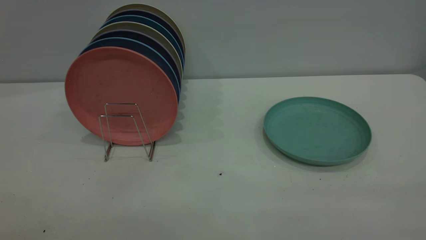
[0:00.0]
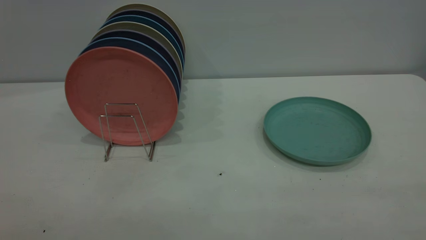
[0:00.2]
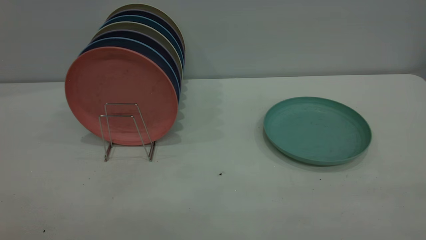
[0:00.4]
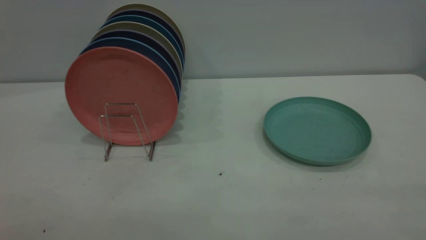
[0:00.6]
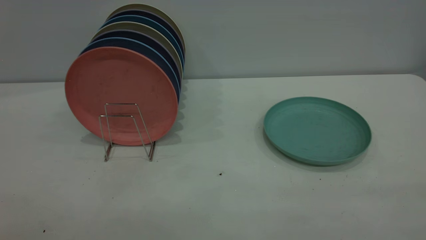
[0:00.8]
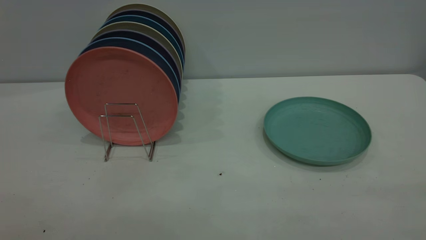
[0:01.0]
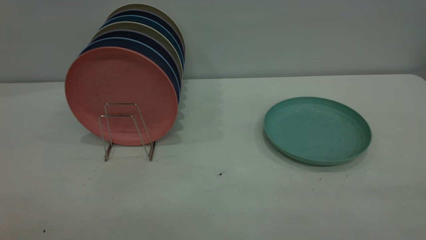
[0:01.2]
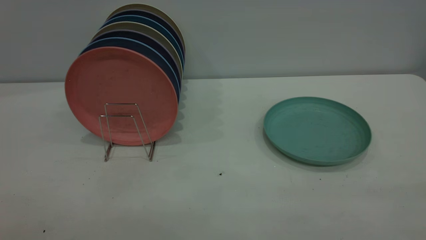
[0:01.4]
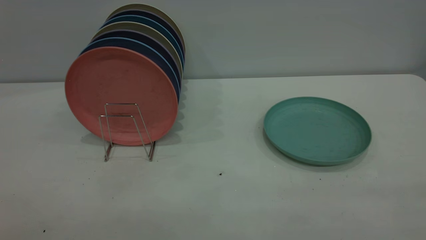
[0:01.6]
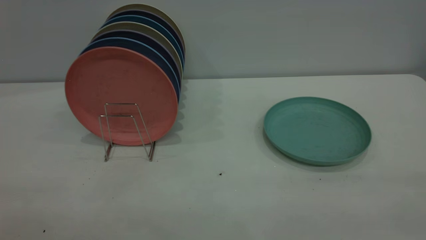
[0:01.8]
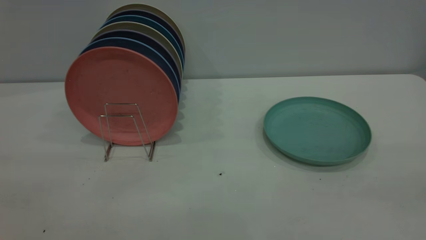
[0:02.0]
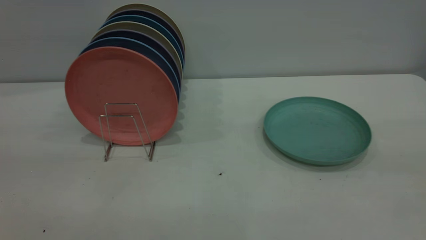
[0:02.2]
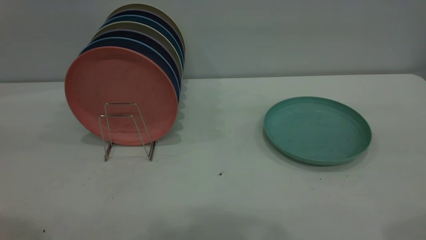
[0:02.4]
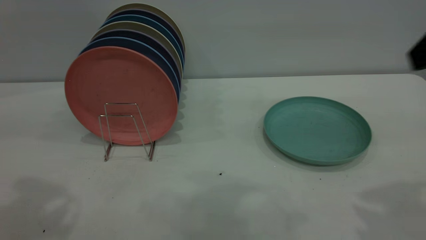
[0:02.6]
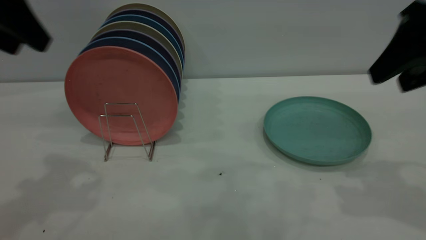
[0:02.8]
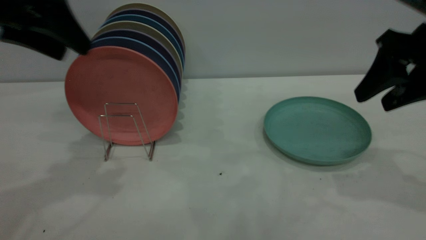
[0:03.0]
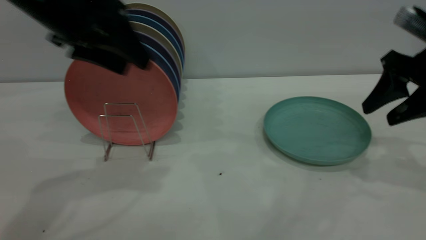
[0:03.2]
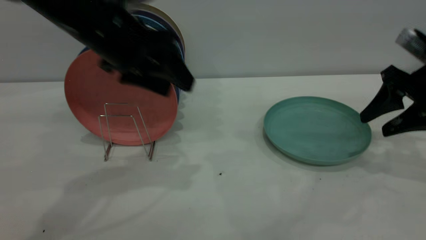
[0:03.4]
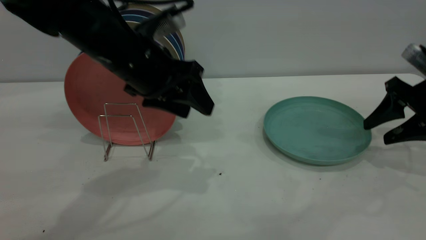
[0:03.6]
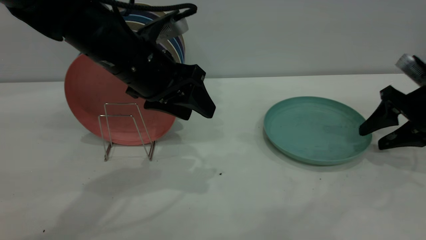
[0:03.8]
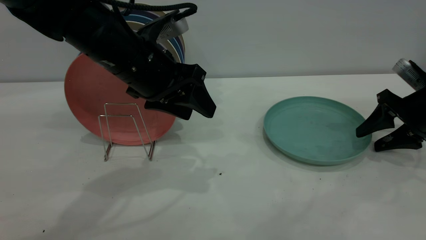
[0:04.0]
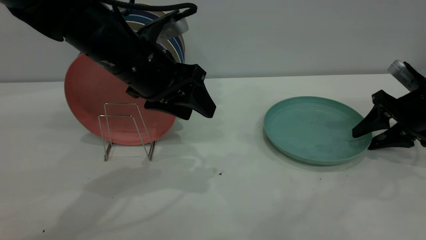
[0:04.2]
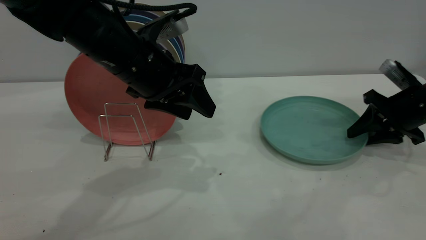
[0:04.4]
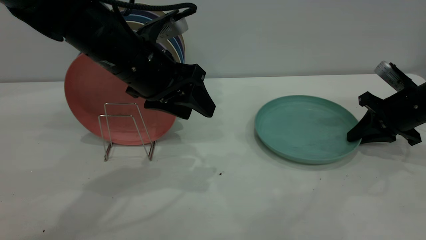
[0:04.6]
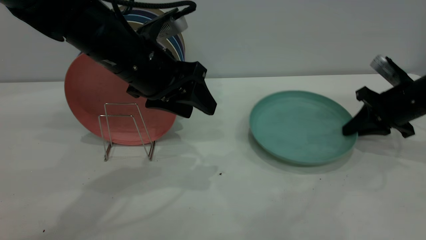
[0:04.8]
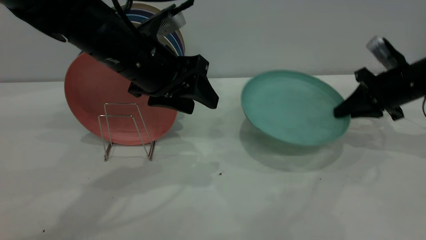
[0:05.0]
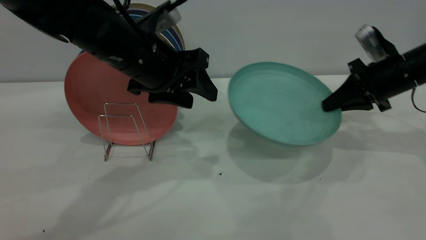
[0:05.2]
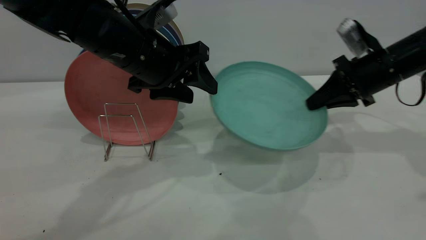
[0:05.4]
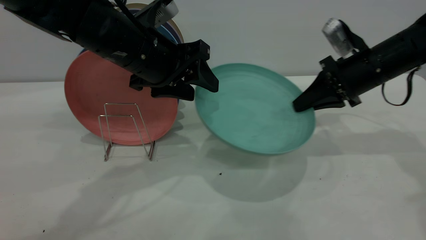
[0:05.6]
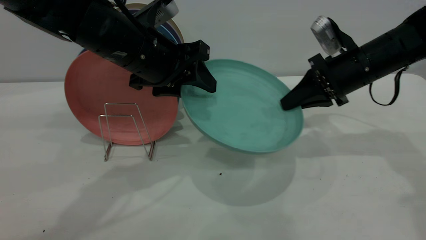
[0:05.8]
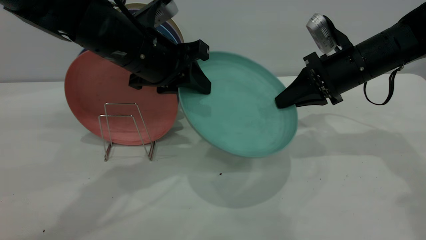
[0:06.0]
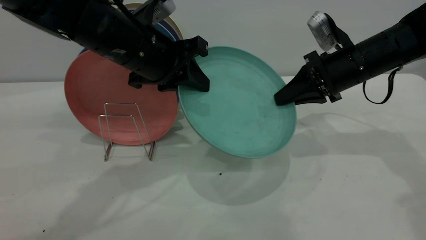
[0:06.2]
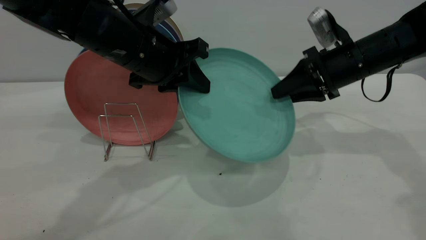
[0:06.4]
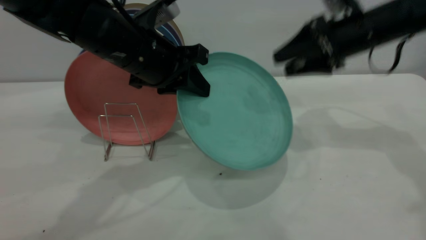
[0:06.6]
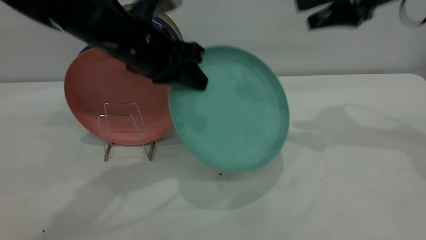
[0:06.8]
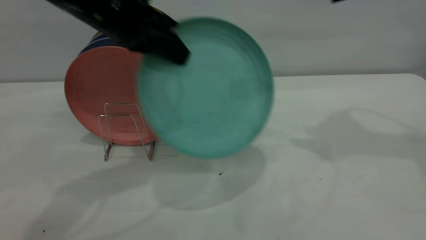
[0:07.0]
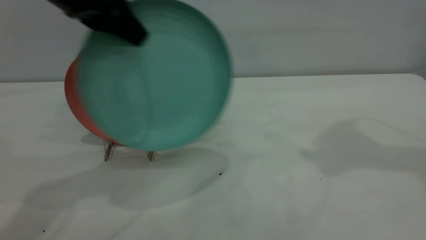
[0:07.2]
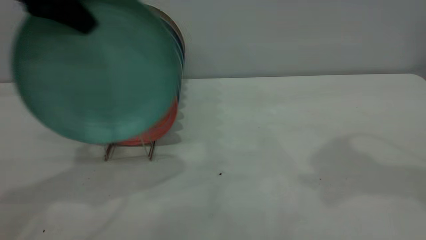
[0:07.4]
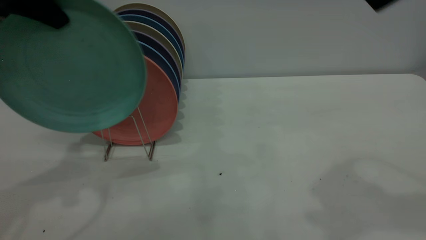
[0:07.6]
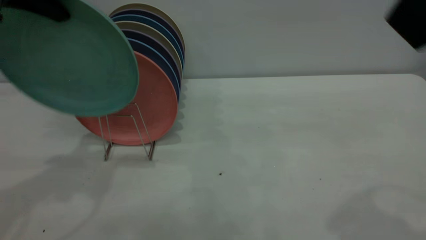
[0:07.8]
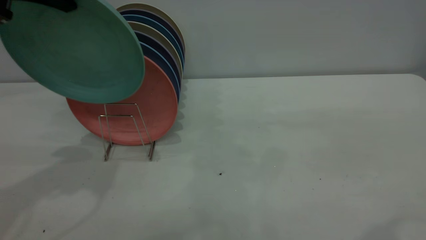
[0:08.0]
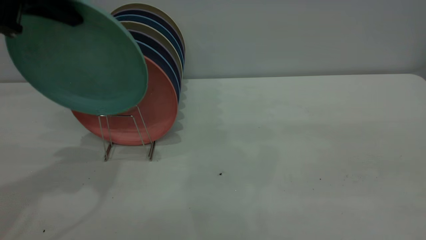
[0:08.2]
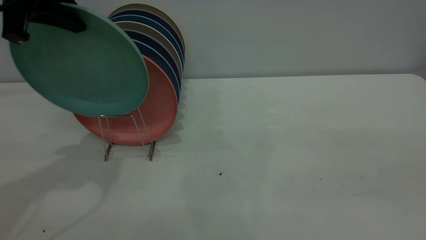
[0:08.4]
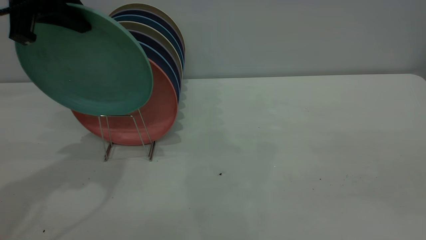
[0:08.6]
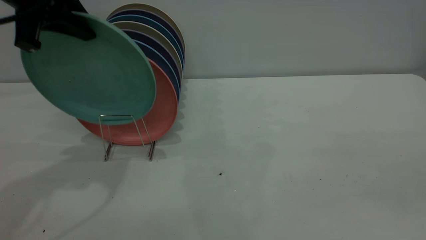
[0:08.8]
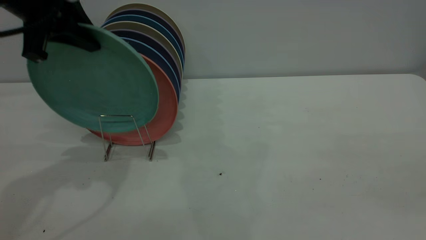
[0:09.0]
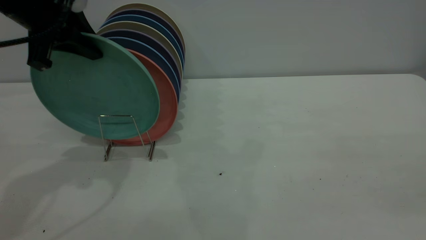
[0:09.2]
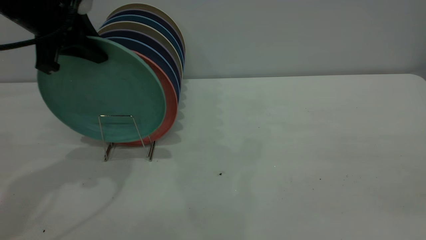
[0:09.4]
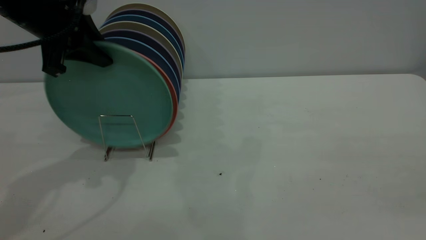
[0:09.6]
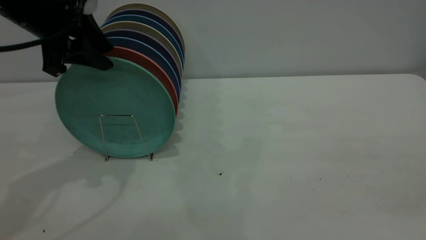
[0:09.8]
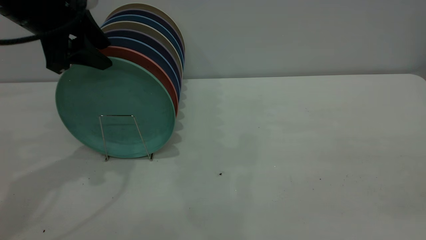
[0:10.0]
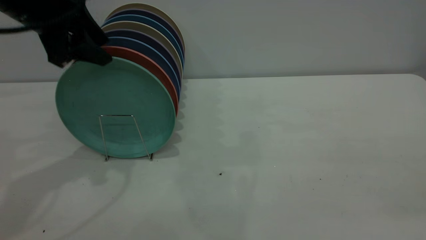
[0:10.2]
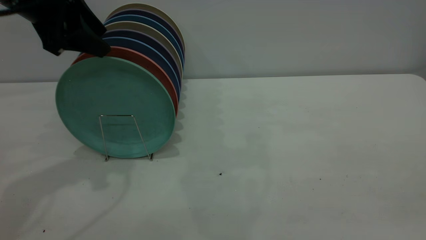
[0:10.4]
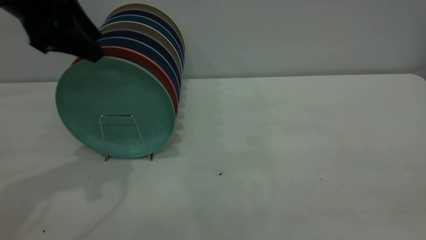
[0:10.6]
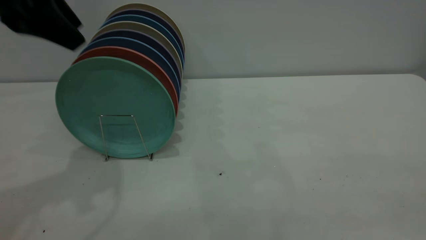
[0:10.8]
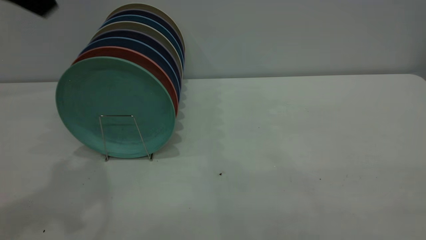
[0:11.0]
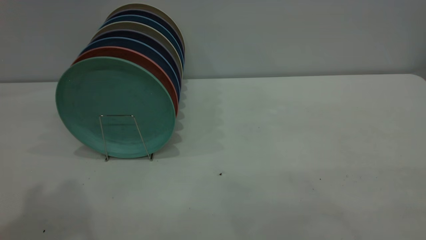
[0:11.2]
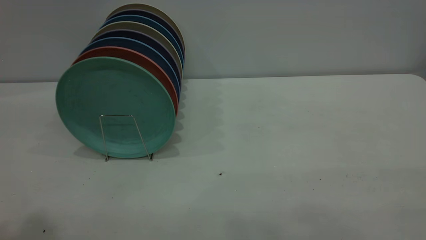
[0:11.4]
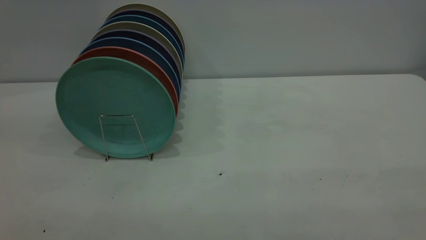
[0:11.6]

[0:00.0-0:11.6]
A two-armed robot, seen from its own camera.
Task of the whole recording: the right gripper grasp the green plate, the right gripper pass the green plate to the left gripper, and the left gripper place the green plate on the plate rack.
Step, 0:00.0 to 0:04.8: Pick up the plate with the right gripper.
Step, 0:05.0 to 0:06.4: Pass the plate from the right gripper to the left gripper.
Step, 0:06.6 to 0:10.6: Place the plate on the shelf.
0:00.0 to 0:01.4: Neither gripper changes place.
0:01.4 to 0:02.8: Both grippers travel together forward, approximately 30 cm.
0:02.8 to 0:04.4: The right gripper travels downward and forward by about 20 cm, and closes. Meanwhile the left gripper moves to the right and downward, roughly 20 cm.
0:04.4 to 0:05.8: The right gripper moves to the left and upward, some 15 cm, and closes up.
0:05.8 to 0:07.2: The right gripper is displaced upward by some 25 cm, and opens its fingers. Meanwhile the left gripper travels upward and to the left by roughly 15 cm, and closes its fingers.
0:07.2 to 0:08.8: The right gripper shifts roughly 30 cm backward, while the left gripper goes approximately 5 cm to the left.
0:08.8 to 0:10.2: The left gripper opens its fingers.
0:10.2 to 0:11.6: The left gripper moves backward and upward, about 30 cm.

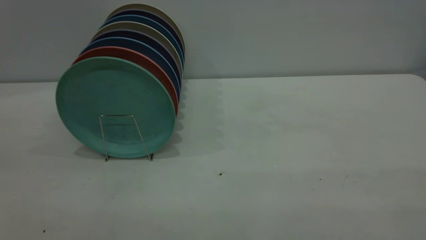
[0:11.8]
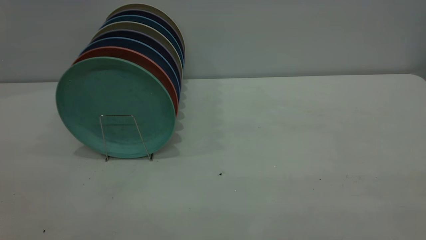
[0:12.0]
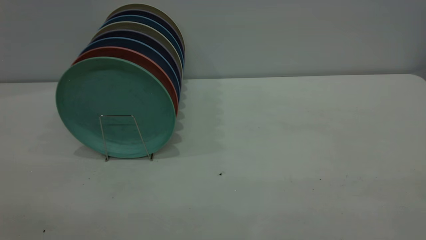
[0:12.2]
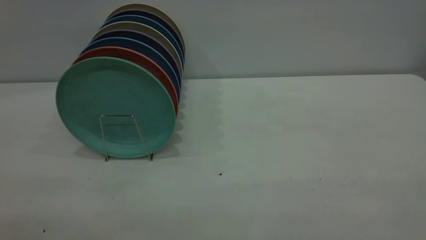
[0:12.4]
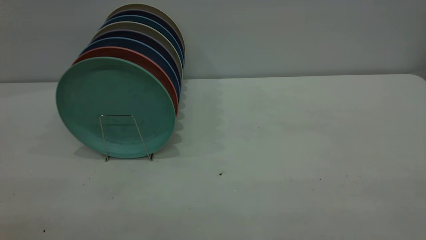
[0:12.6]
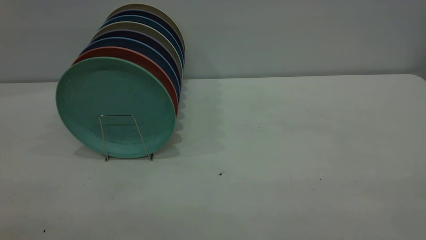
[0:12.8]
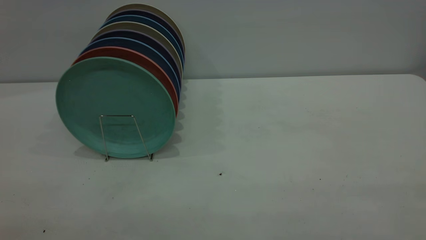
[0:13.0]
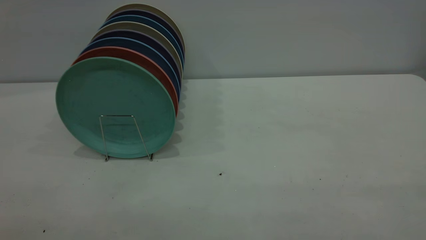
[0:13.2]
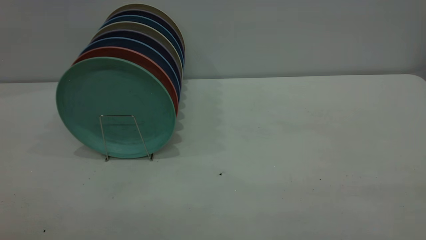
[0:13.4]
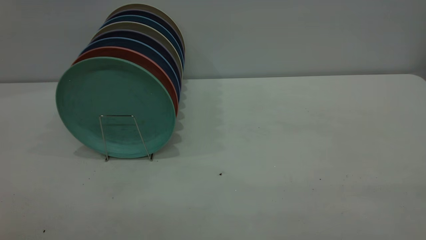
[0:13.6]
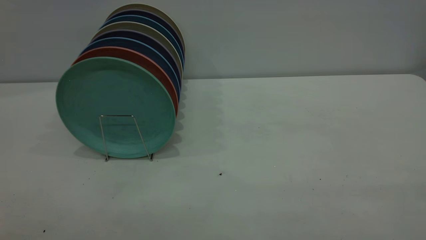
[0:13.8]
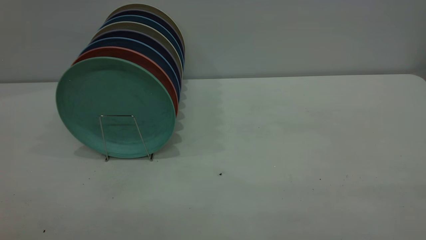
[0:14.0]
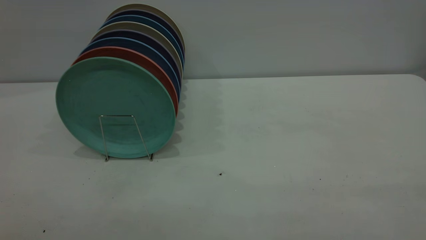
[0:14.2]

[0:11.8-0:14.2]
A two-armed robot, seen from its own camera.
Task of the whole recording: the right gripper grasp the green plate, the right gripper pass the green plate to the left gripper, and the left gripper place the green plate on the plate rack.
0:13.0 to 0:14.2: Both grippers stay put.

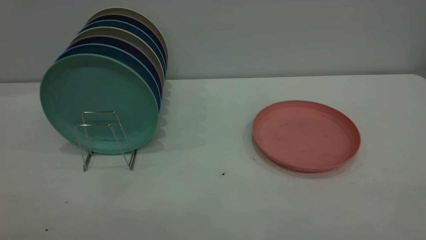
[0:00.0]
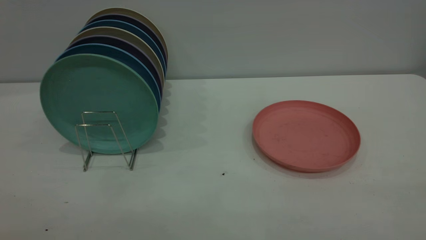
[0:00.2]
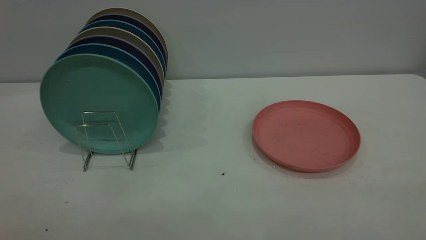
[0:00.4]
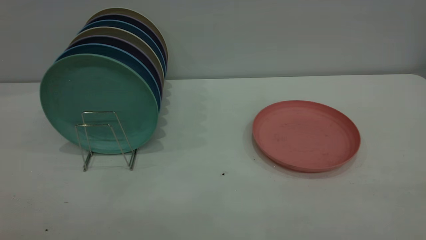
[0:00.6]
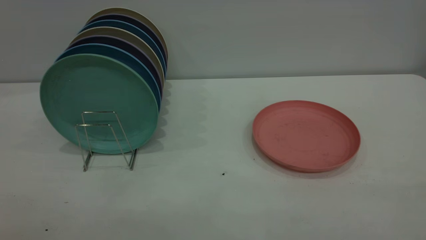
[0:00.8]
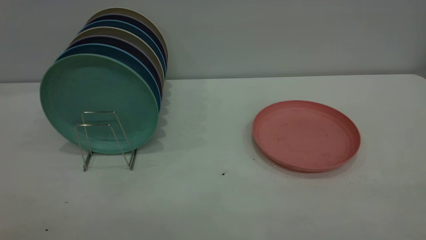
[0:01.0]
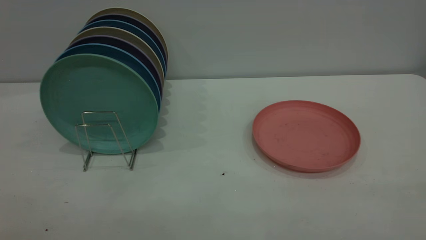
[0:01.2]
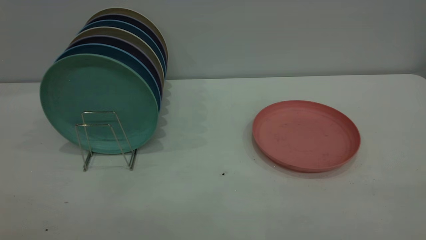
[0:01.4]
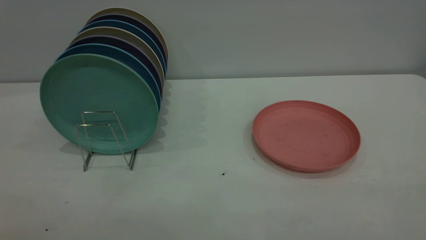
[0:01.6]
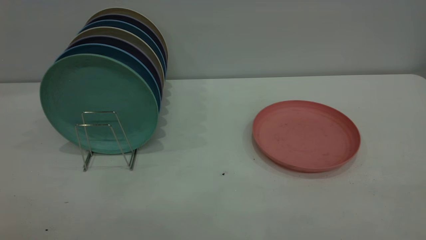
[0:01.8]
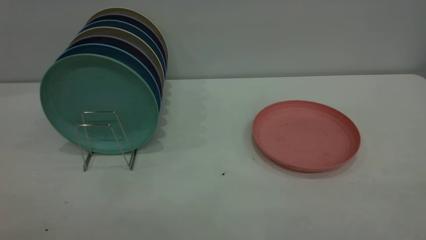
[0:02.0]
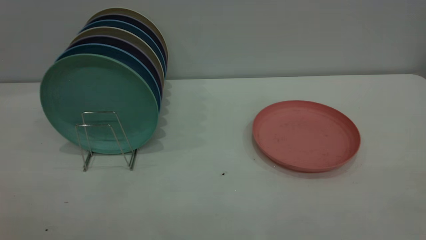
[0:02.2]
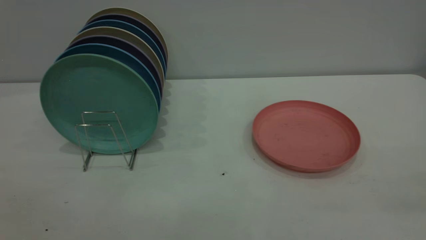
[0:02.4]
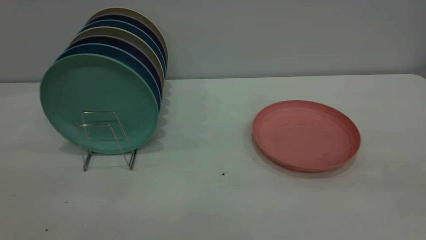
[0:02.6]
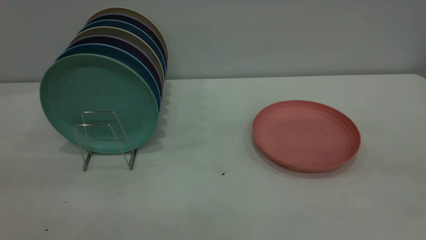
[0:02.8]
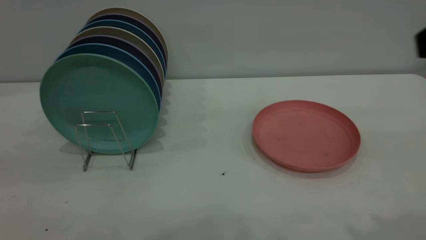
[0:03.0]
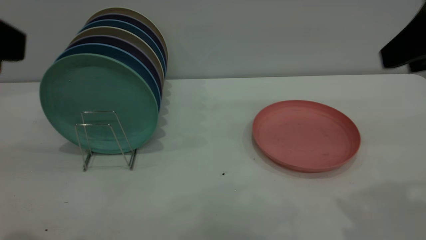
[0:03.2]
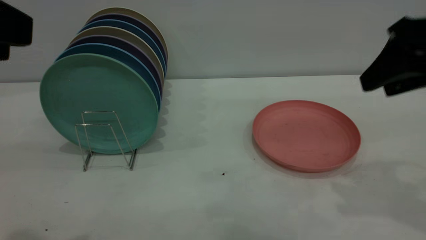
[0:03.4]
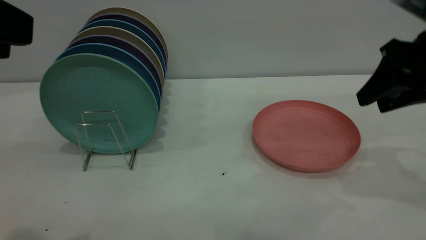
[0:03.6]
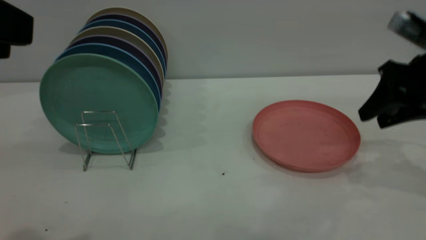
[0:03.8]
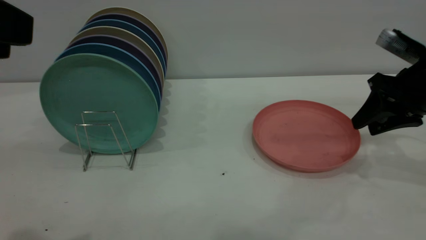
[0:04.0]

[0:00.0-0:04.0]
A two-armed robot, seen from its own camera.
Task of the whole recording: the right gripper grasp the pink plate, the right gripper pass the pink plate to the left gripper, and the left gripper place the pink plate on the plate rack.
0:00.0 to 0:01.4: Both grippers stay put.
0:02.6 to 0:04.0: The left gripper travels forward by roughly 10 cm. Meanwhile the right gripper shifts roughly 35 cm forward and downward.
